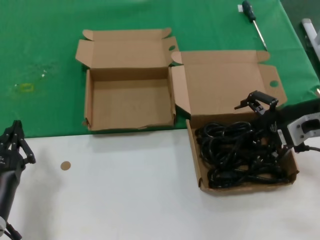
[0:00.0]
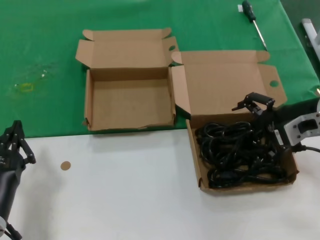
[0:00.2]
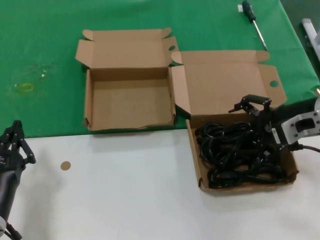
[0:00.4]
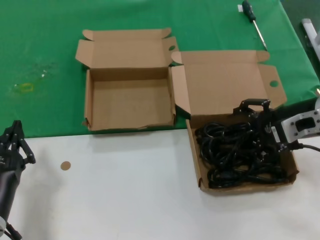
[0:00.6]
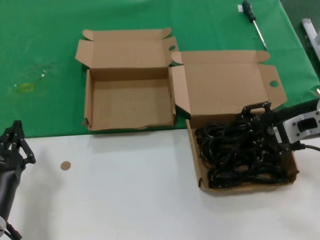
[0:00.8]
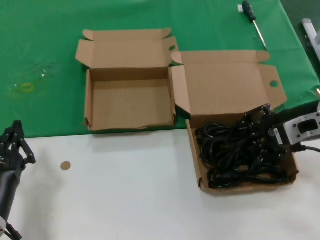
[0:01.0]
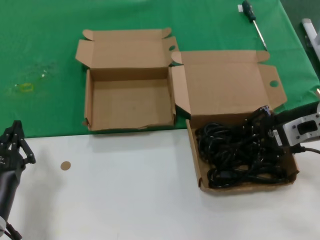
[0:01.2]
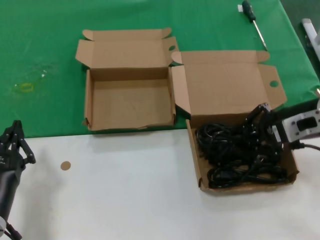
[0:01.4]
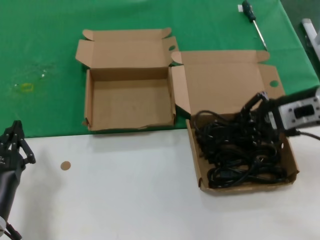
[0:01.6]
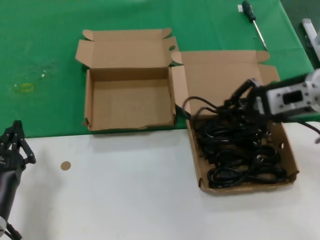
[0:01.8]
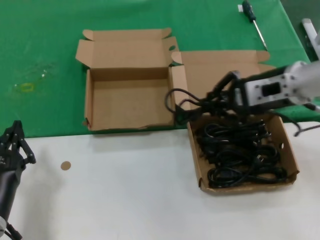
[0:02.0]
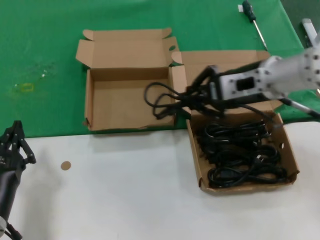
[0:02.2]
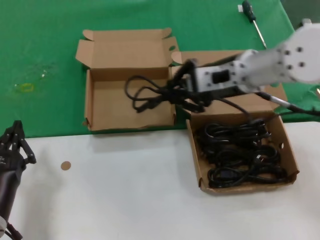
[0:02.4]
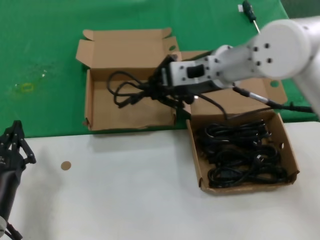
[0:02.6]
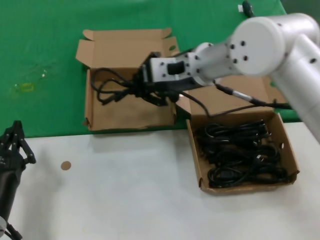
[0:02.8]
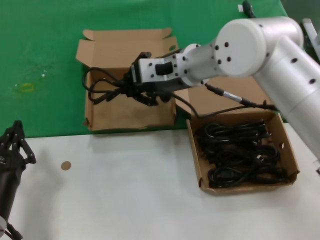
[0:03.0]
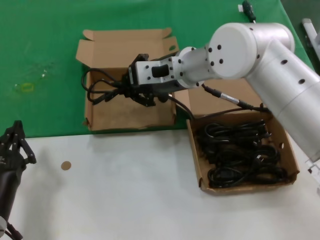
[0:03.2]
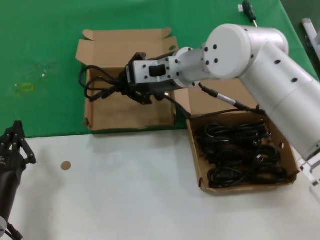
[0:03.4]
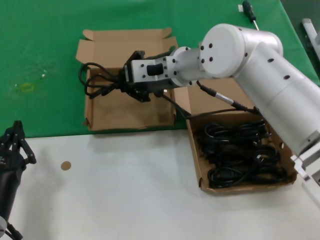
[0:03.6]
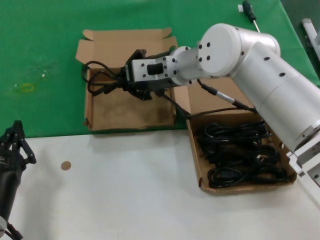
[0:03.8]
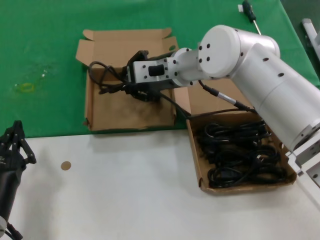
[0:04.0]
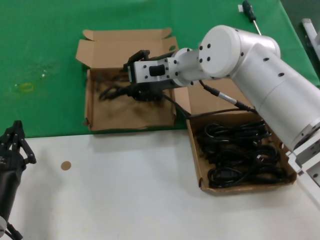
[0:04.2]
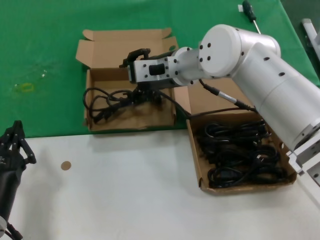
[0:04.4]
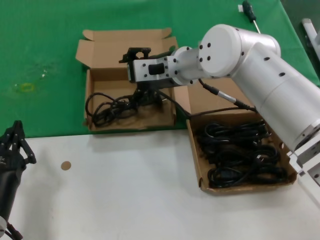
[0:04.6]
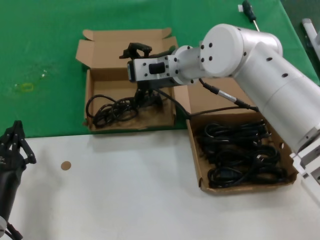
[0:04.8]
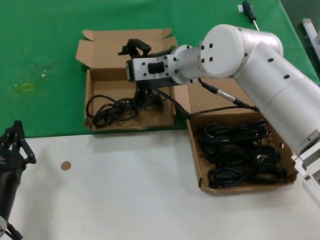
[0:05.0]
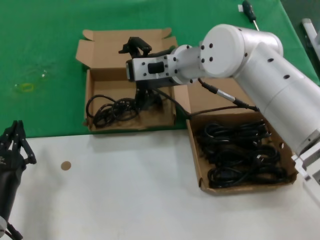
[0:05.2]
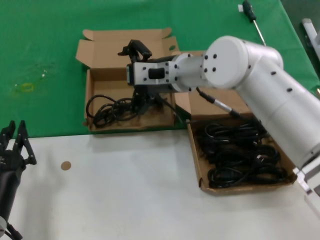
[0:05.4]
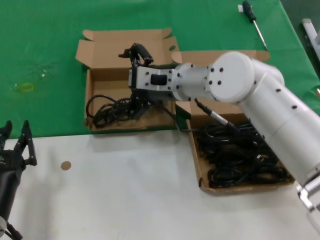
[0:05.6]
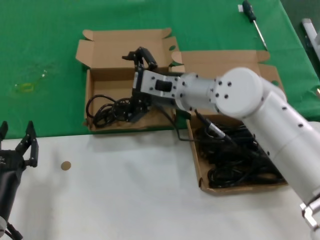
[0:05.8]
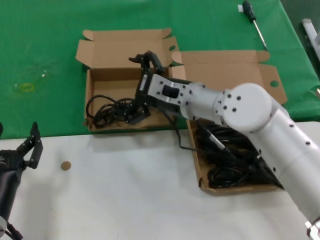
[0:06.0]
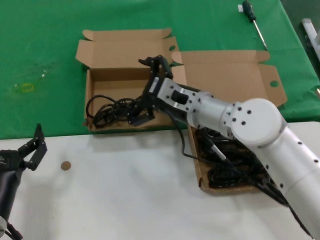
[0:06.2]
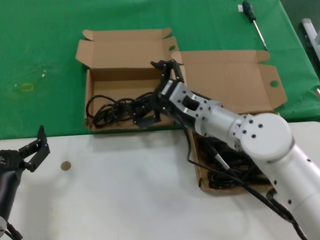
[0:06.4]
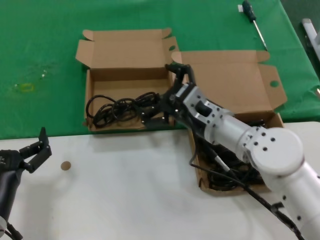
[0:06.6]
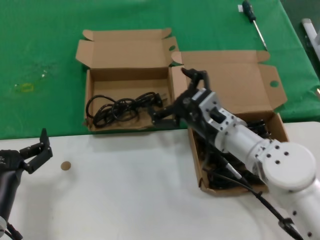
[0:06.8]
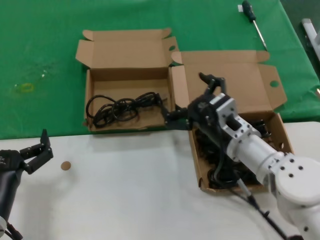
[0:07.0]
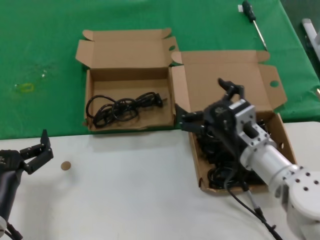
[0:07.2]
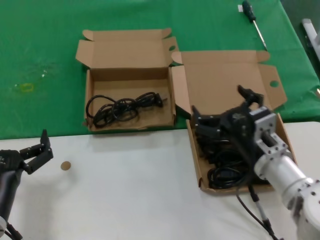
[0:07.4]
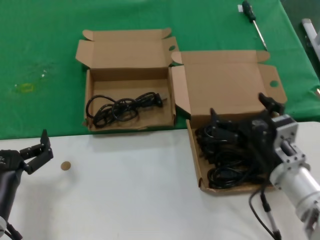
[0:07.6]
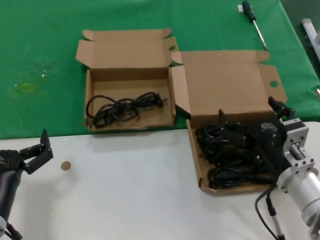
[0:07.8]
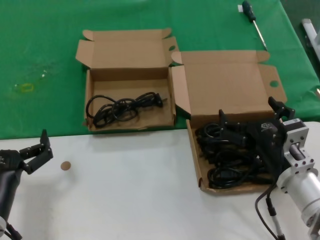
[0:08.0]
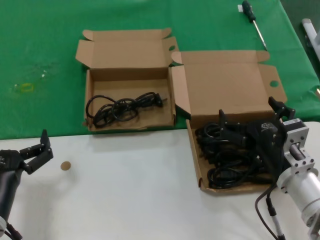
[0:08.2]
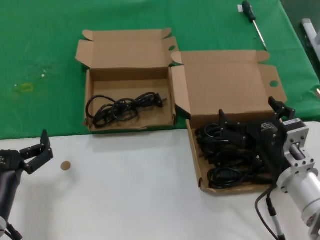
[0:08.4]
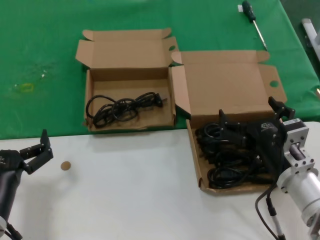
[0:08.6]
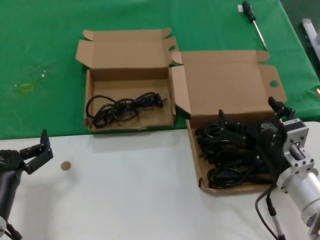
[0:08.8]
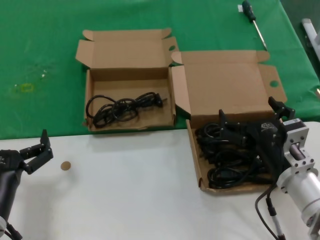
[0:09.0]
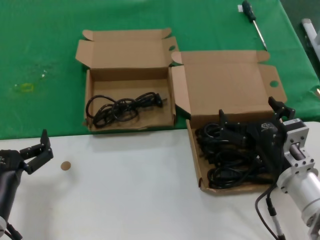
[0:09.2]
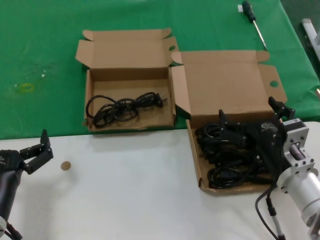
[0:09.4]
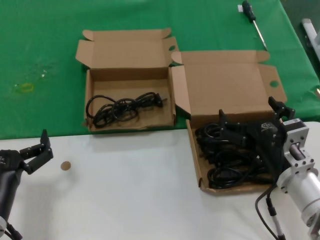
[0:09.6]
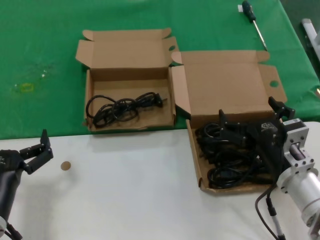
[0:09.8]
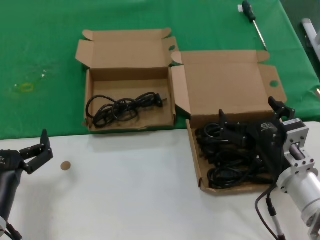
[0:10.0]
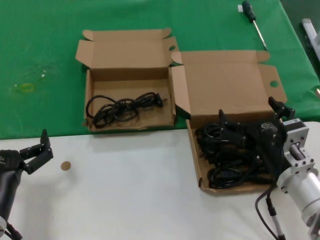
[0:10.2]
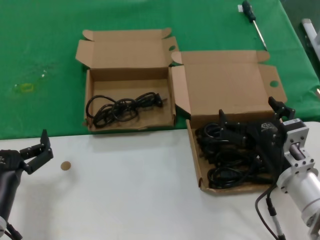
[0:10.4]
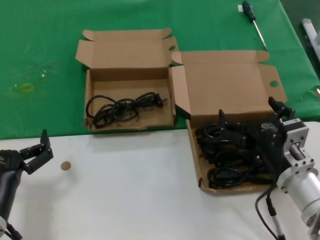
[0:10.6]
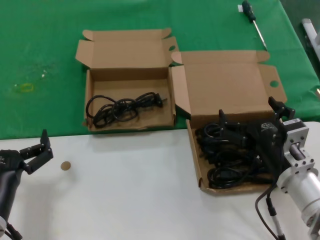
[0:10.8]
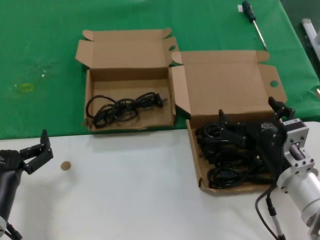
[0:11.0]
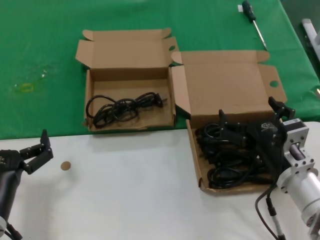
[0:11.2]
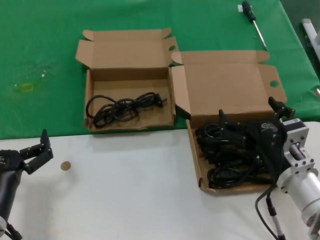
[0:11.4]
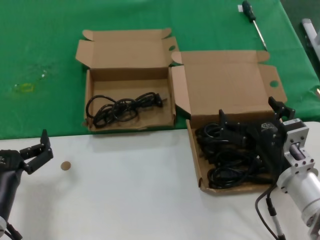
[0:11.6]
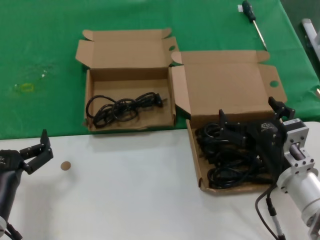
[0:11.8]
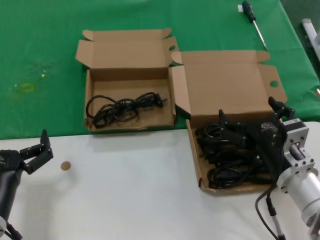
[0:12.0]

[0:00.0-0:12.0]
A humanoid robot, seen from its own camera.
Task of the whole recording: take the parts from the box containing them and put them into an empty box.
Step, 0:01.2 to 0:04.6: Place the data cable in the another box.
0:00.0 to 0:01.6: There are only small adjustments of the hands.
0:01.6 to 0:03.0: The right hand is displaced to the left by approximately 20 cm.
0:03.0 to 0:04.4: The right hand shifts by approximately 5 cm.
0:04.4 to 0:06.0: The right hand goes roughly 5 cm downward.
0:06.0 to 0:07.6: The right hand is displaced backward, to the right and downward by roughly 25 cm.
0:07.6 to 0:09.0: The hands stay close to where they were, moving slightly.
0:09.0 to 0:12.0: Both hands stay about where they are.

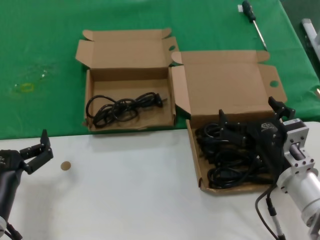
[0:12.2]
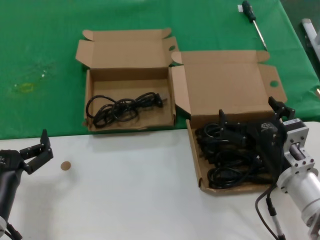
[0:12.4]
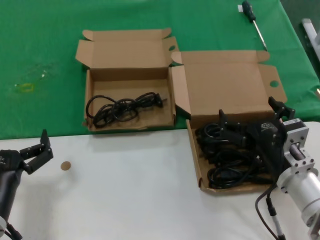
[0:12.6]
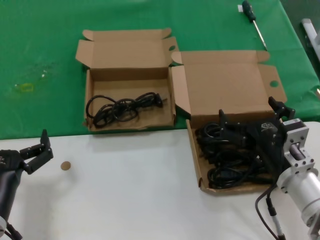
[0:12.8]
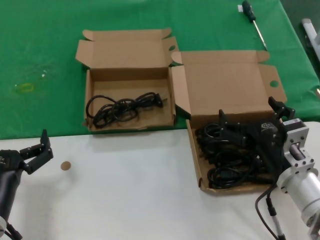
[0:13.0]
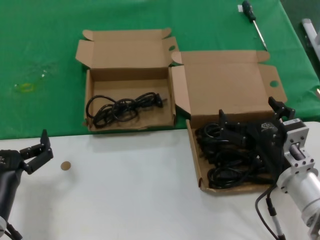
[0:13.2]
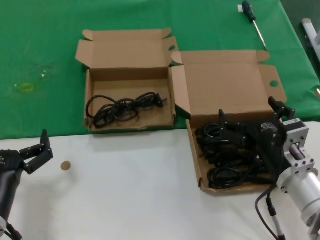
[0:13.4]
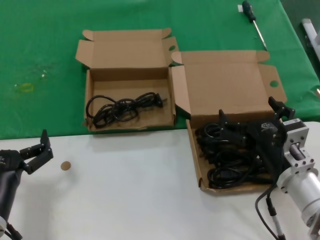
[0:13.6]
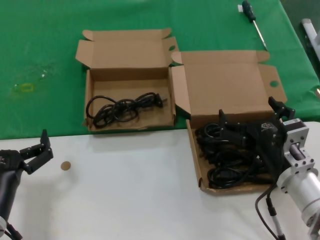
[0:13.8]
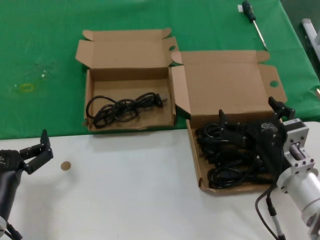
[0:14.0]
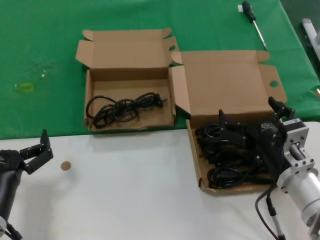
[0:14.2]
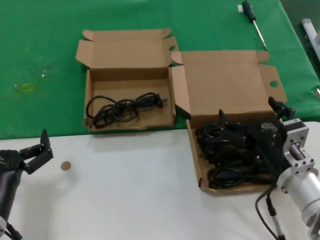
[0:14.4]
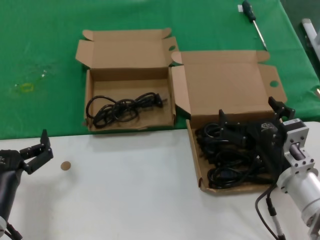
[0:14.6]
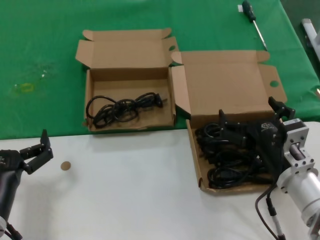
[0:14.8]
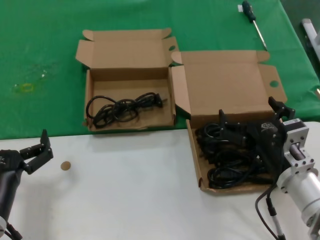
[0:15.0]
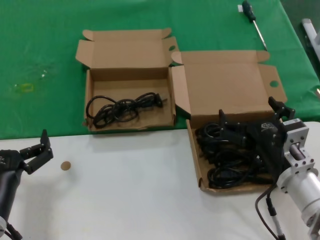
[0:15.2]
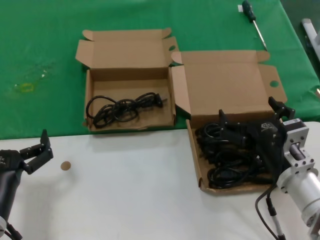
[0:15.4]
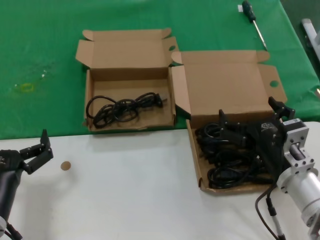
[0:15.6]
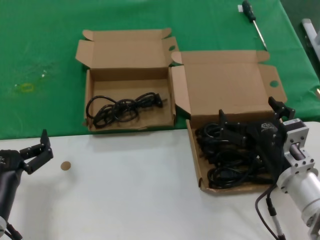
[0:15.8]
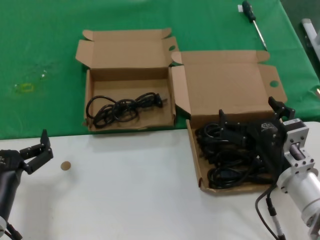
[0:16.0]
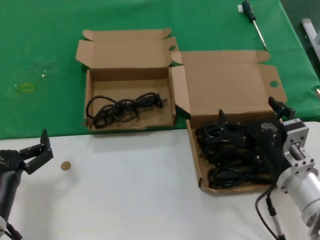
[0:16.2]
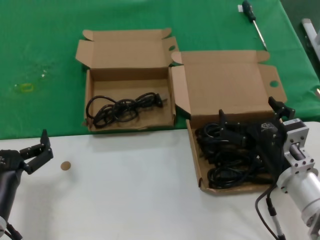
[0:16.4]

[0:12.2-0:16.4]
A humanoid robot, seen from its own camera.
Task of the whole recording: take the parts from the box containing them and put them into an empty box.
0:12.2 to 0:16.4: Both hands stay about where they are.
